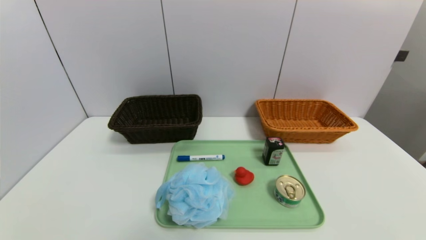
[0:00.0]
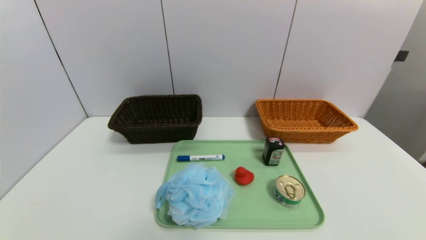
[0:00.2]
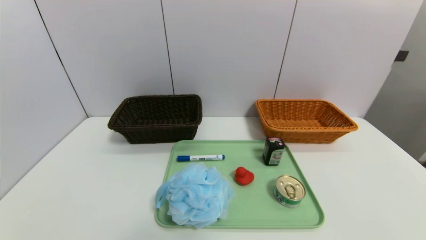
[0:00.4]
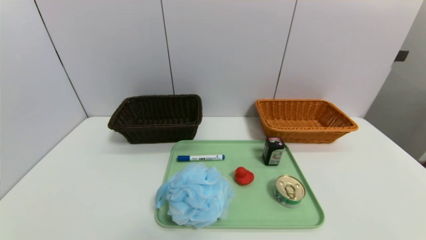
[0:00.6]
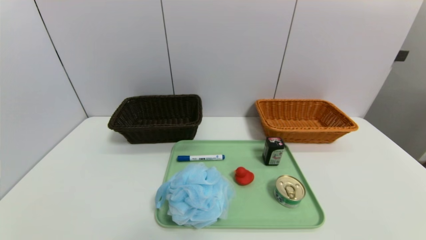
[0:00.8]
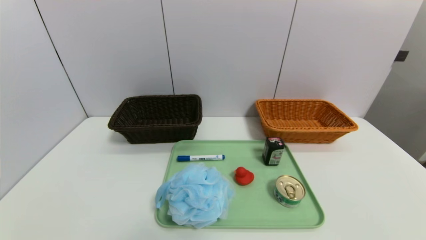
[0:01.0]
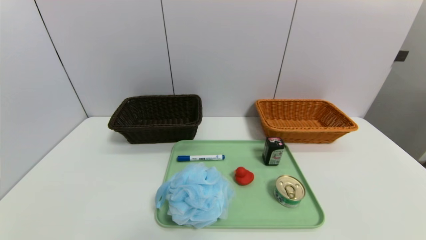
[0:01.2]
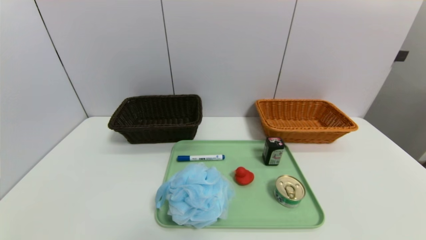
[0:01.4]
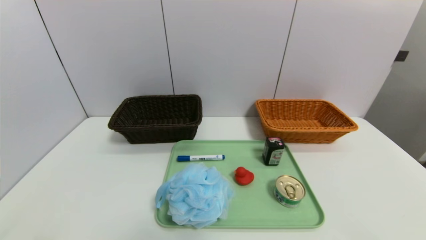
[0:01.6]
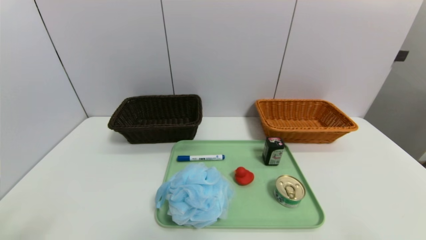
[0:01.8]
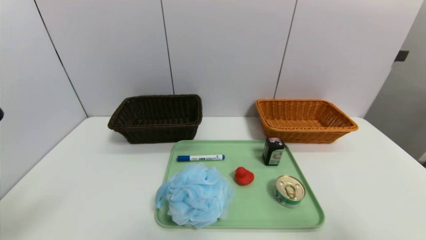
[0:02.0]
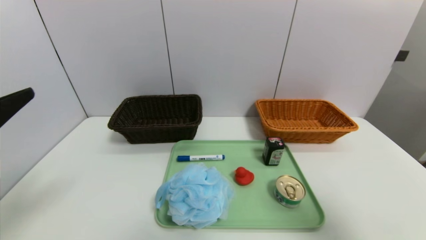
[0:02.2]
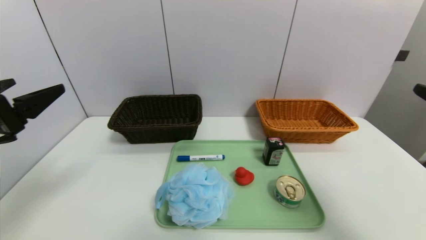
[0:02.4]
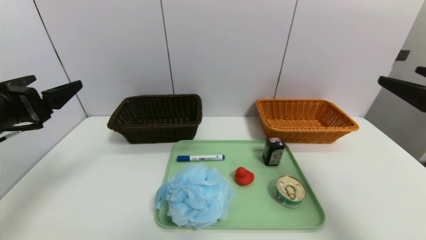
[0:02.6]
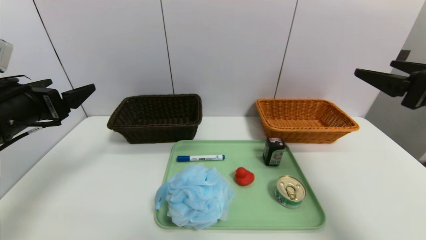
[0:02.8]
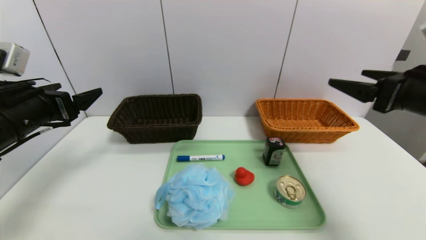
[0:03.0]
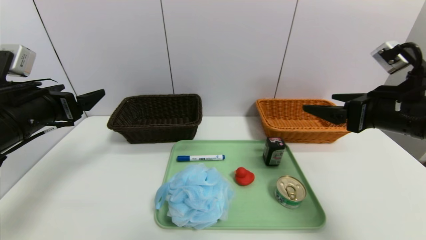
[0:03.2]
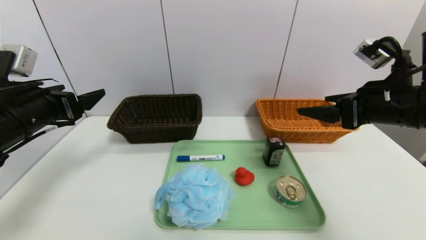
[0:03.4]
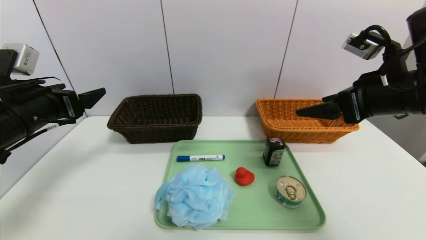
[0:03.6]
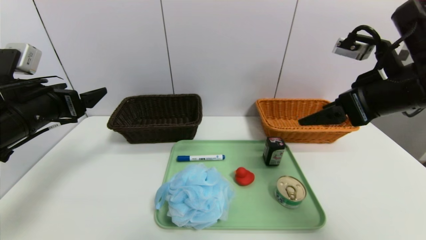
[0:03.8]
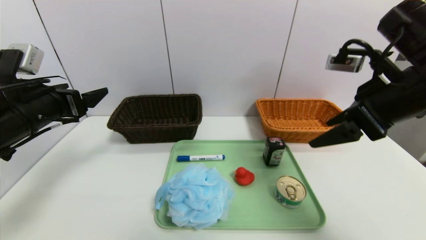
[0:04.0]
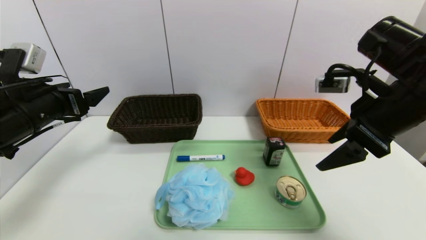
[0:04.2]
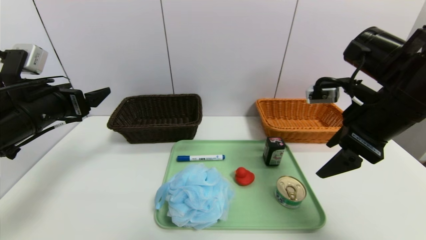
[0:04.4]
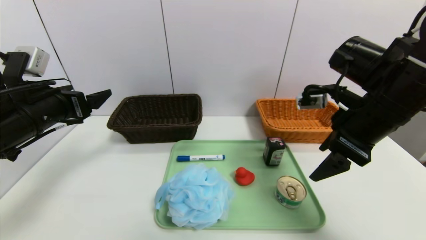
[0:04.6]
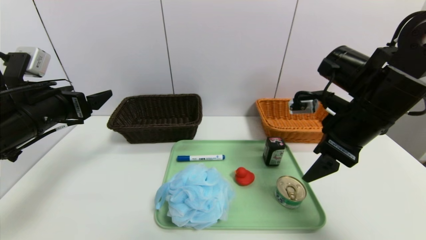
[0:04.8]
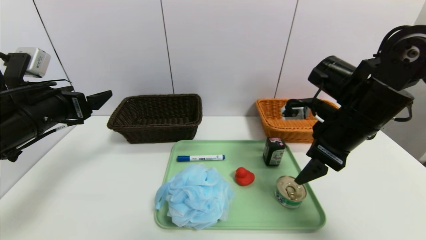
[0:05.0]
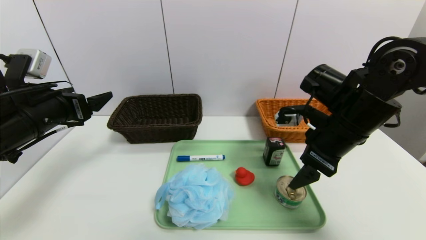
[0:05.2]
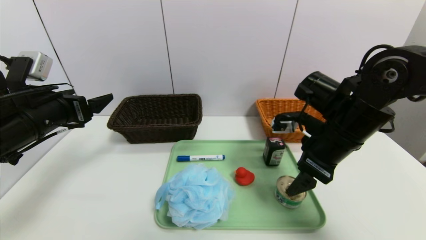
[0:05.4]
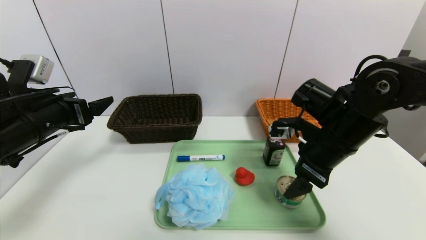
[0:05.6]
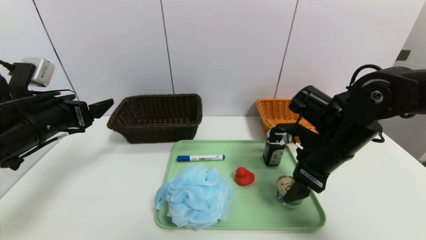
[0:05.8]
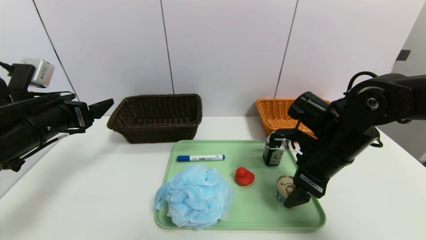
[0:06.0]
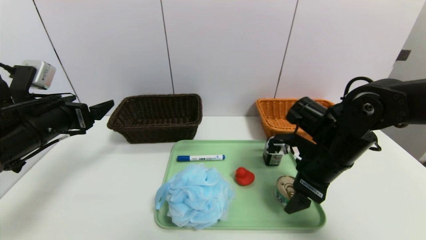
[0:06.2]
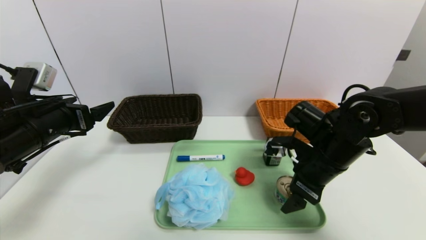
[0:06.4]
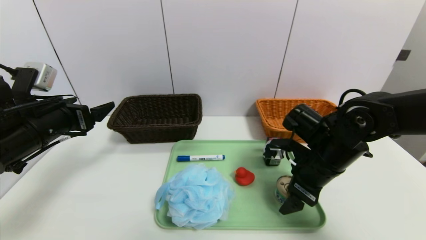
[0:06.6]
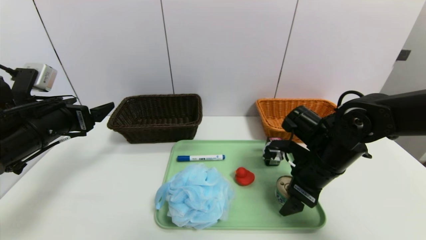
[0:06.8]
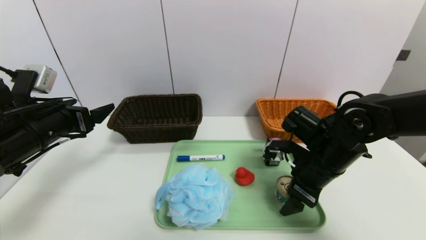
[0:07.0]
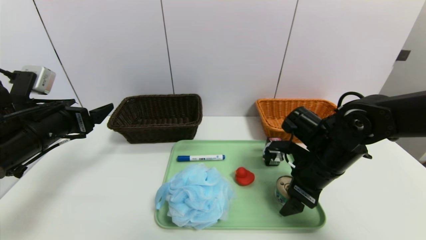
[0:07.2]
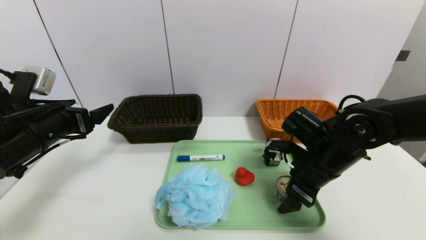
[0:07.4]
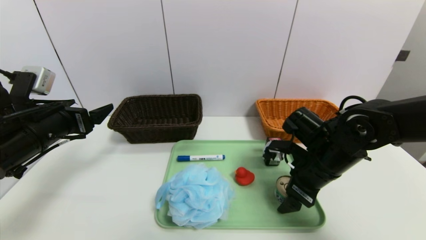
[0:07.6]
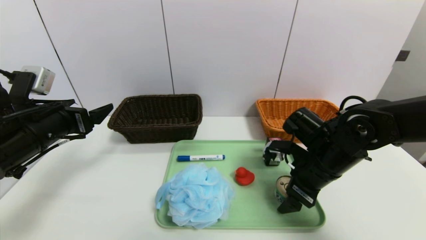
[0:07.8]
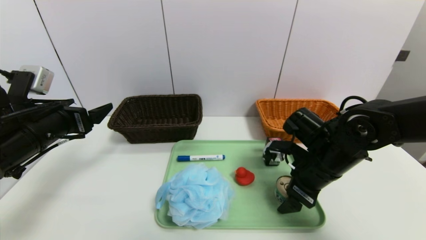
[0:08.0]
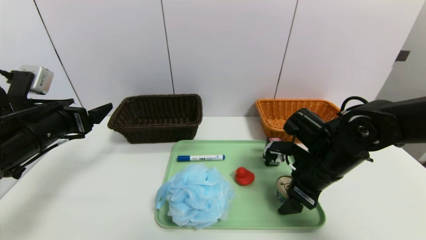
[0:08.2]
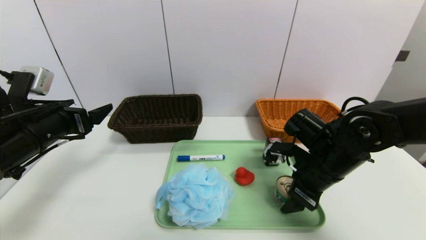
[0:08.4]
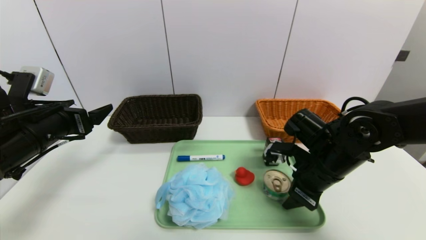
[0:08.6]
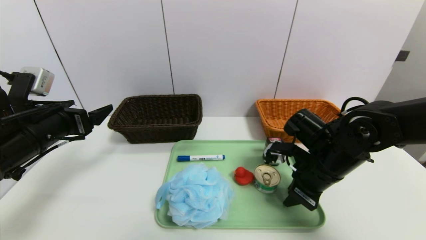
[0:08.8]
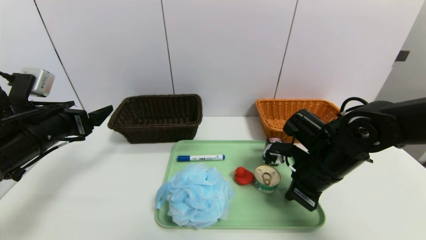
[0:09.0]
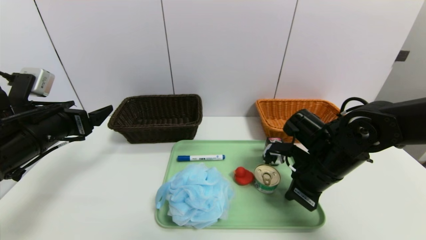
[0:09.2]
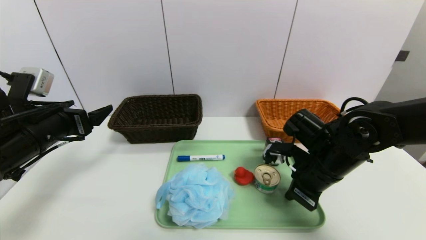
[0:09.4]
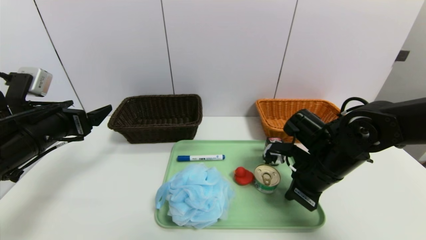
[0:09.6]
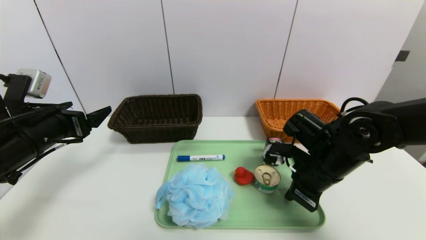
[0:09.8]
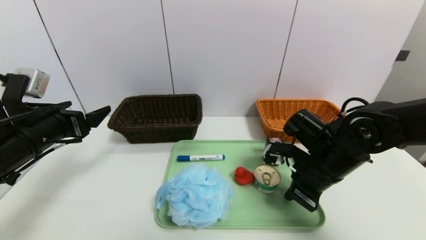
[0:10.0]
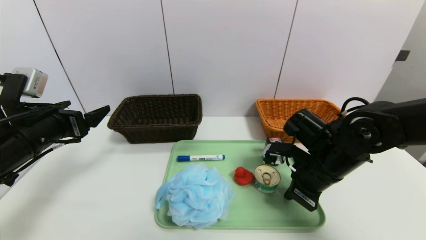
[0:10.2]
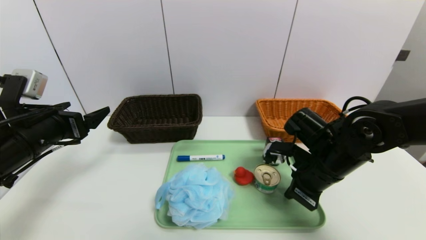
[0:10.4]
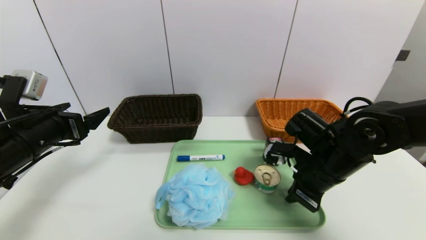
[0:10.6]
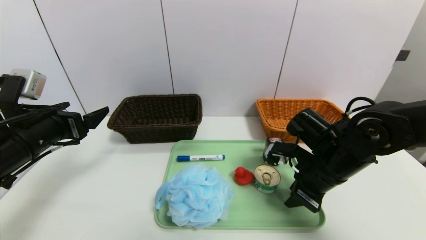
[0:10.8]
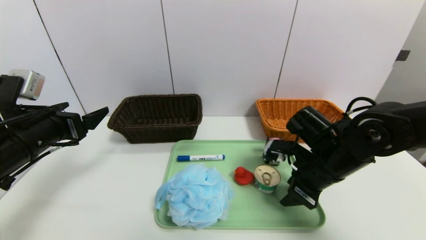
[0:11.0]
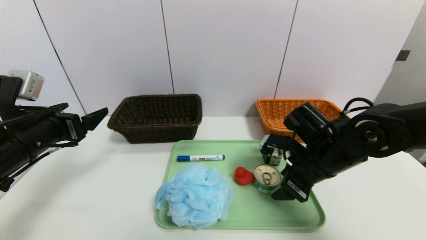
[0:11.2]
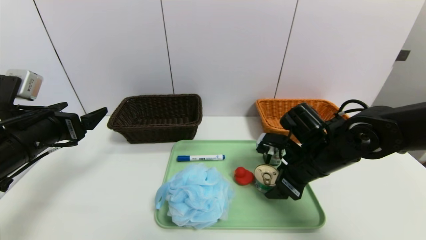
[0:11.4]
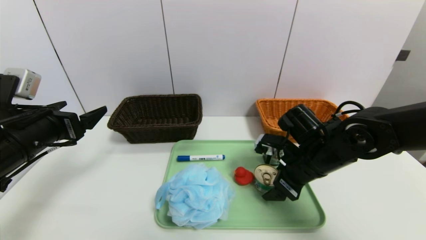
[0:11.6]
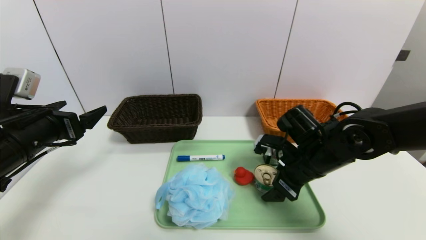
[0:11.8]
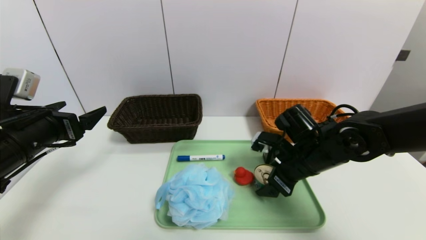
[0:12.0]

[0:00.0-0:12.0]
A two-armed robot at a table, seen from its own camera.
Task of the whole recording: place the food in the right basket with the right gripper, and place the non food items in the left basket with the left gripper.
0:01.6 to 0:03.0: The two grippers go some 25 cm forward.
0:03.0 to 0:04.4: The right gripper travels to the left by roughly 5 cm.
0:04.4 to 0:06.0: The right gripper goes some 10 cm downward.
0:06.0 to 0:07.6: The grippers move only a little.
0:07.6 to 0:09.0: The right gripper closes.
0:09.0 to 0:10.4: Both grippers stay about where they are.
0:10.4 to 0:12.0: The right gripper opens.

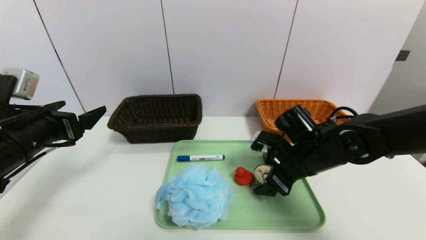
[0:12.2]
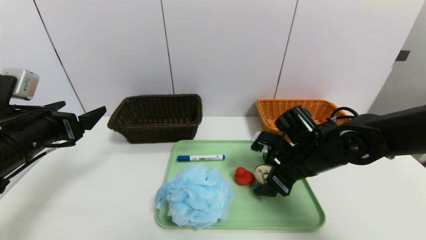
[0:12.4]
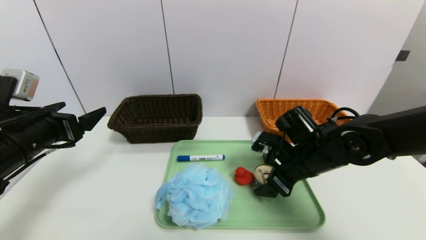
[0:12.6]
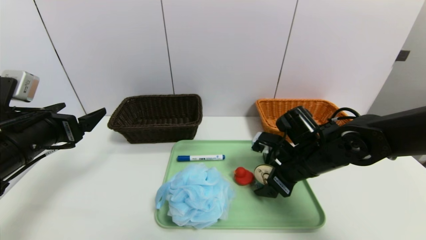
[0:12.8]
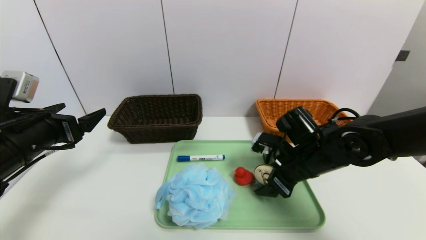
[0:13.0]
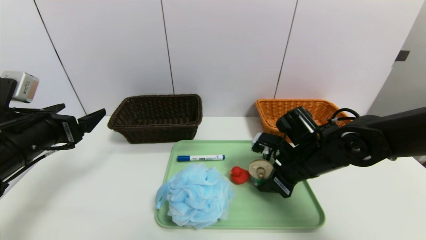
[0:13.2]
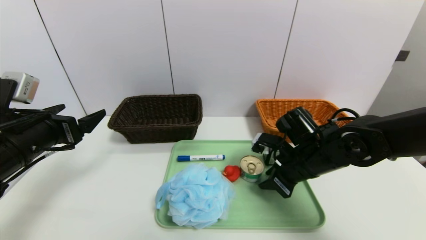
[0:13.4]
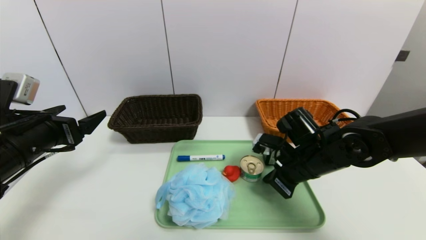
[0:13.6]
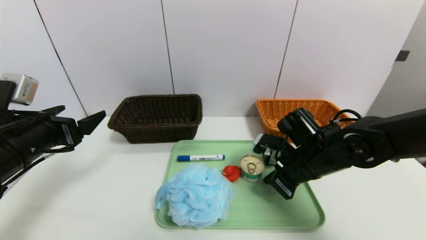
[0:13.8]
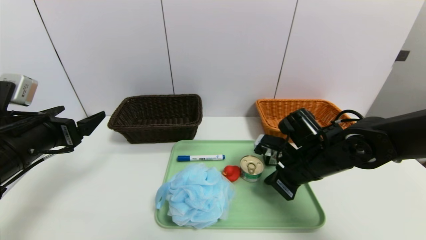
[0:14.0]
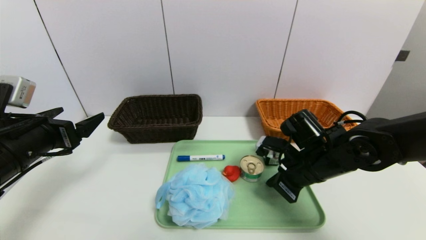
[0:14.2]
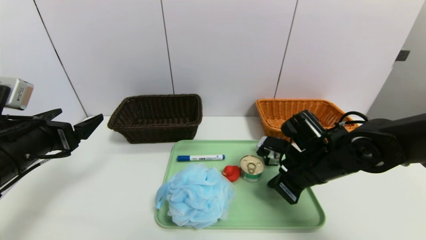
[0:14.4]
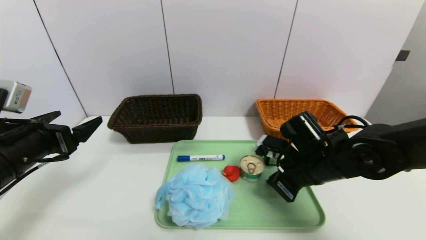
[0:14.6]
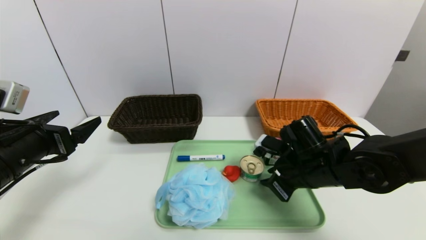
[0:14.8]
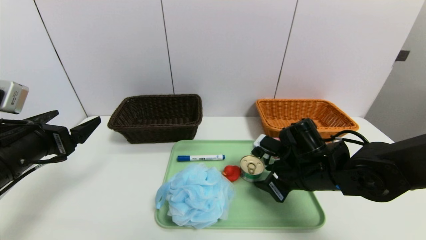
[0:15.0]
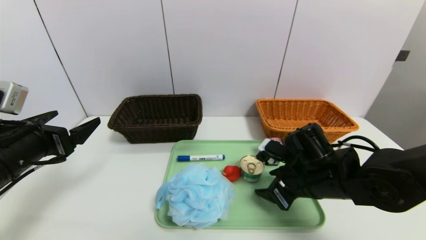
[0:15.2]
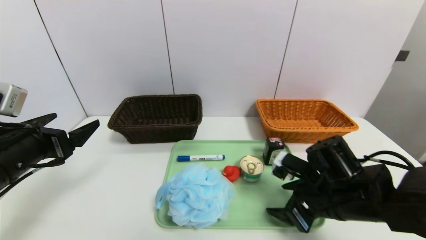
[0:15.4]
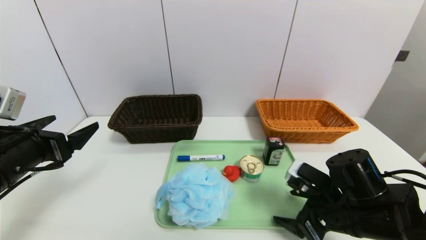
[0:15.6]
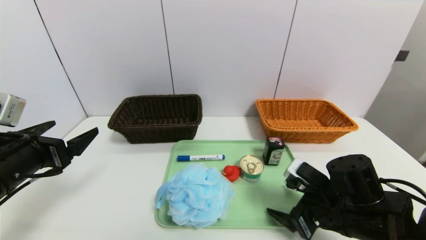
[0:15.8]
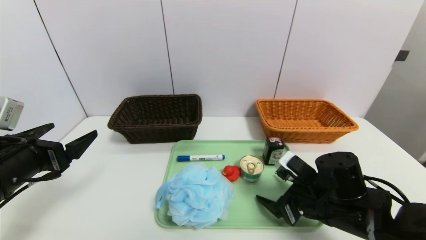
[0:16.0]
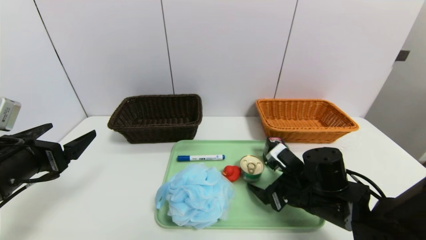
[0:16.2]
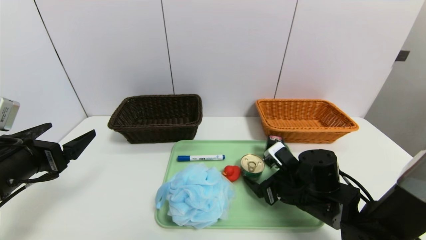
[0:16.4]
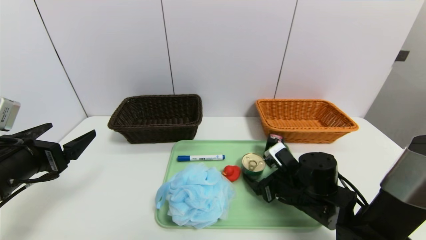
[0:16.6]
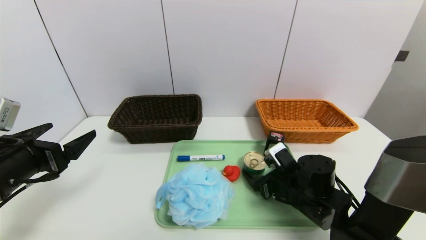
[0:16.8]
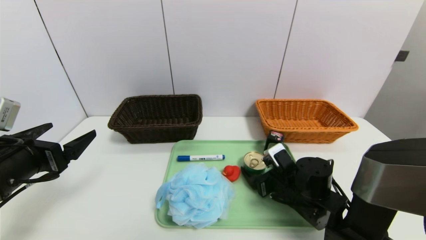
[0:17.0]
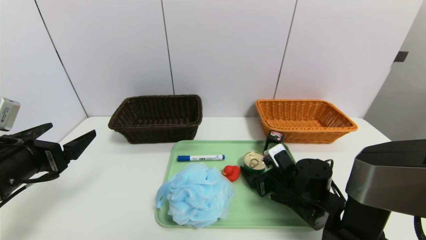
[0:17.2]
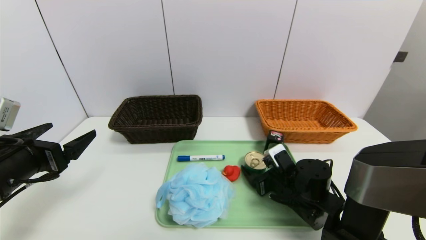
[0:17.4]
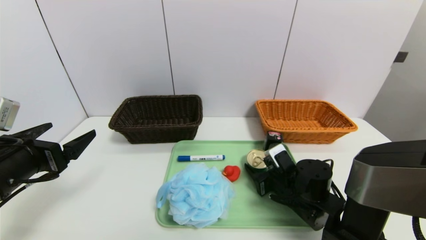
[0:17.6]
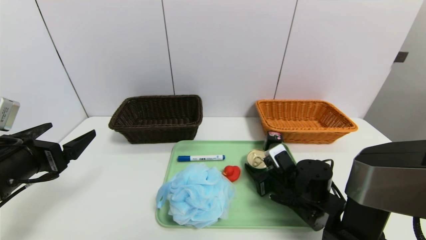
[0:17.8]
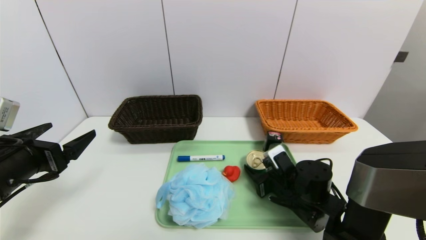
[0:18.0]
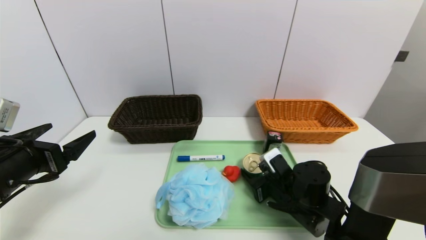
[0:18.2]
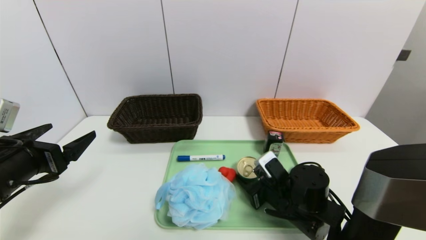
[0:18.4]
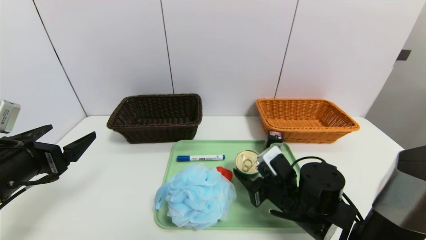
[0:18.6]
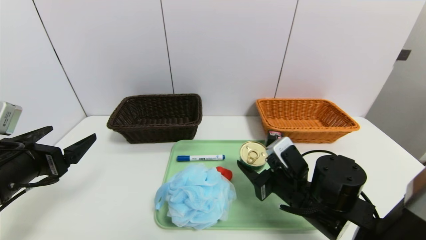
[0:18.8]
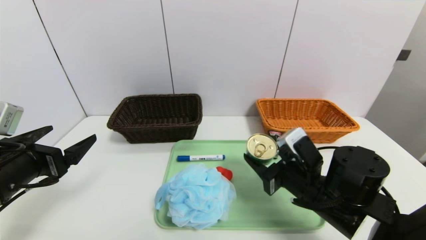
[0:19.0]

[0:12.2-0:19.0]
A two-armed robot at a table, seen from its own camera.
Task of the whole recording: place the food in the right basket with the right gripper, and place the non food items in the left basket with the left gripper.
0:12.2 to 0:13.6: The right gripper closes its fingers.
0:13.6 to 0:15.0: The right gripper opens.
0:16.2 to 0:17.6: The right gripper heads downward, covering roughly 5 cm.
0:17.6 to 0:19.0: The right gripper goes roughly 10 cm upward and backward.
